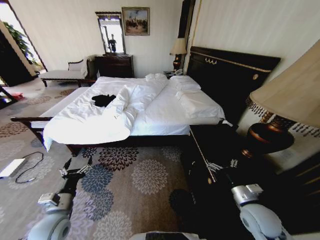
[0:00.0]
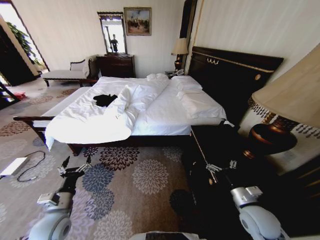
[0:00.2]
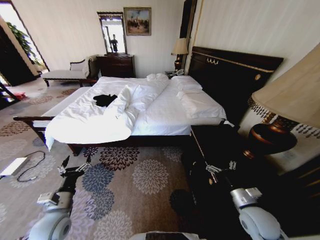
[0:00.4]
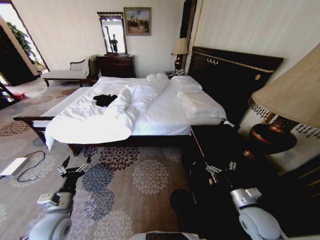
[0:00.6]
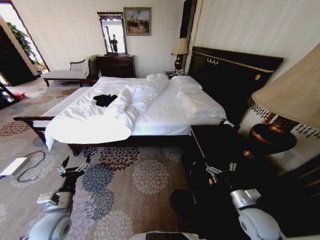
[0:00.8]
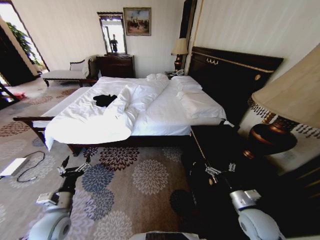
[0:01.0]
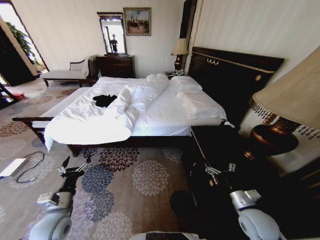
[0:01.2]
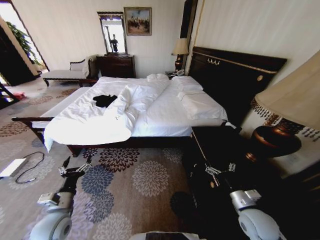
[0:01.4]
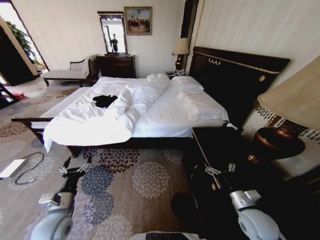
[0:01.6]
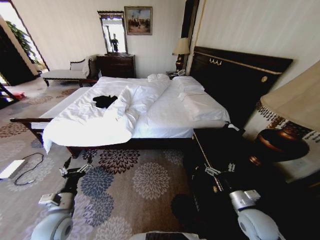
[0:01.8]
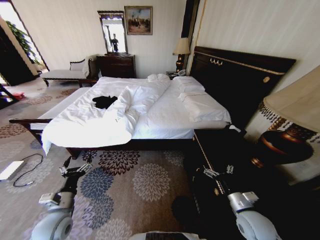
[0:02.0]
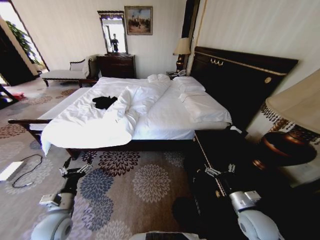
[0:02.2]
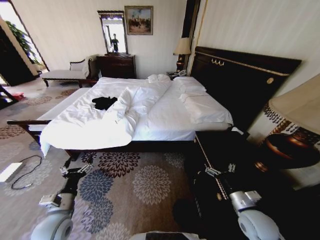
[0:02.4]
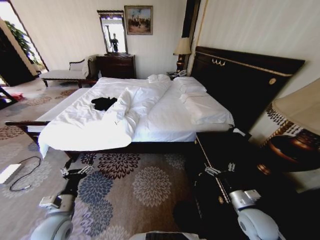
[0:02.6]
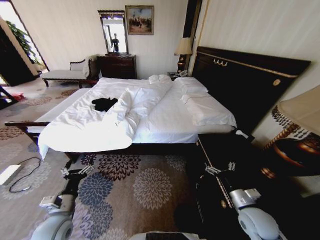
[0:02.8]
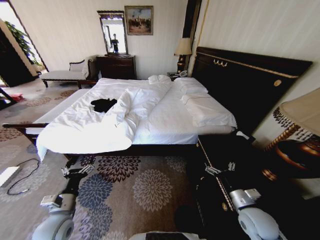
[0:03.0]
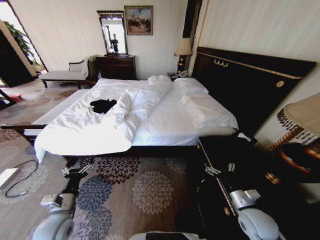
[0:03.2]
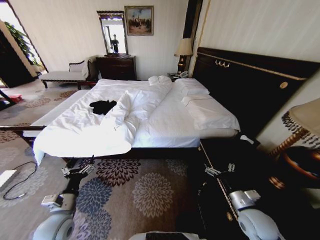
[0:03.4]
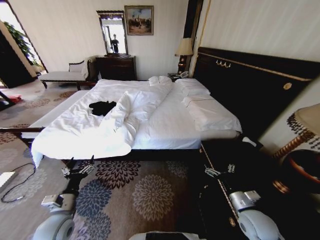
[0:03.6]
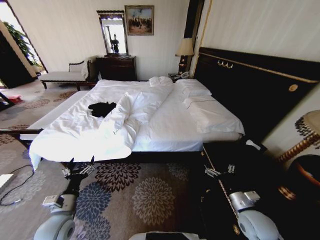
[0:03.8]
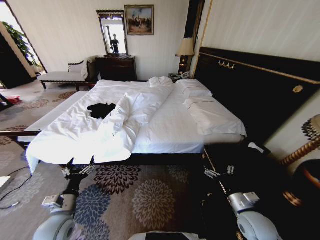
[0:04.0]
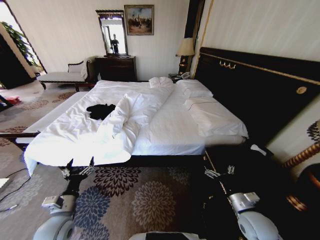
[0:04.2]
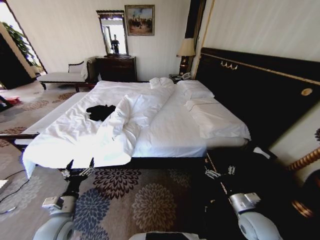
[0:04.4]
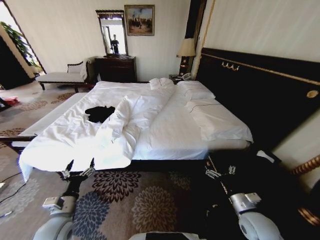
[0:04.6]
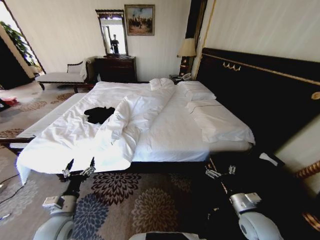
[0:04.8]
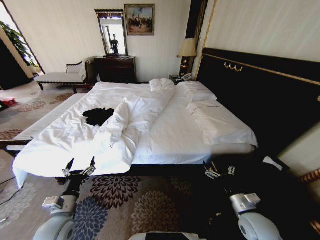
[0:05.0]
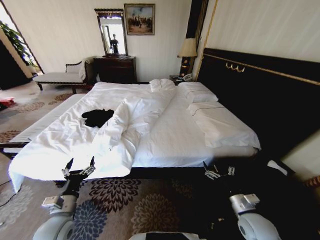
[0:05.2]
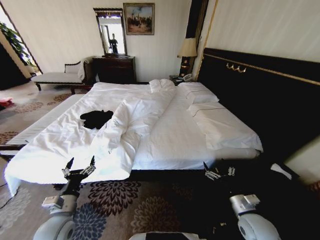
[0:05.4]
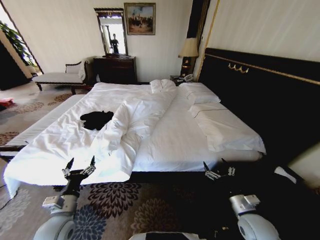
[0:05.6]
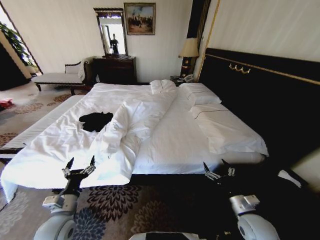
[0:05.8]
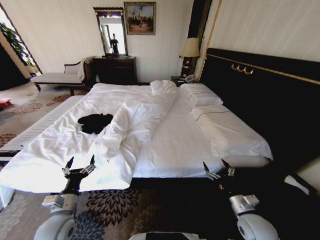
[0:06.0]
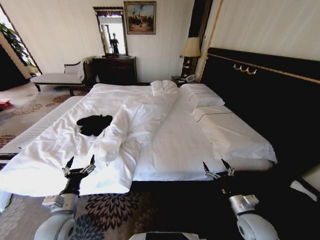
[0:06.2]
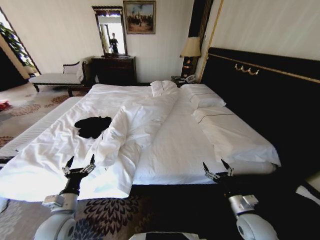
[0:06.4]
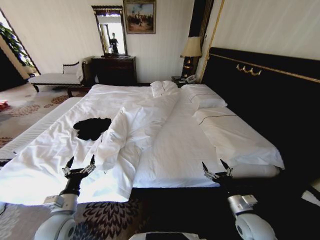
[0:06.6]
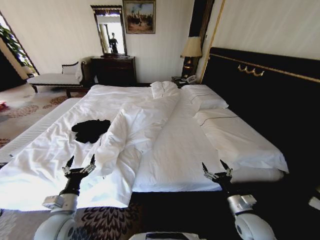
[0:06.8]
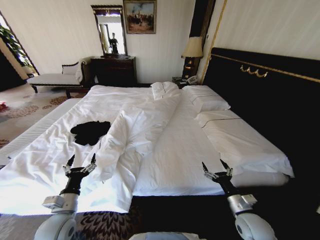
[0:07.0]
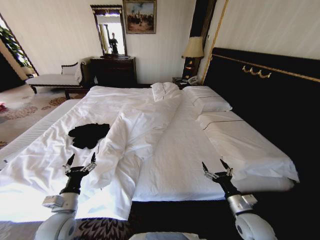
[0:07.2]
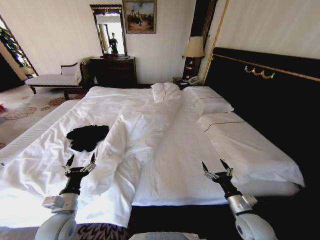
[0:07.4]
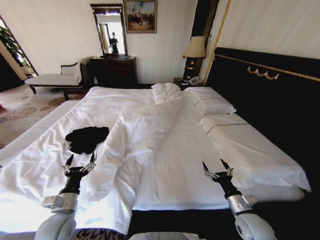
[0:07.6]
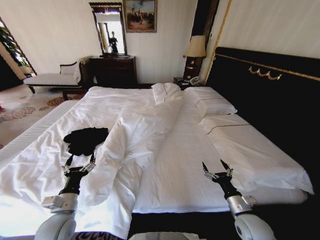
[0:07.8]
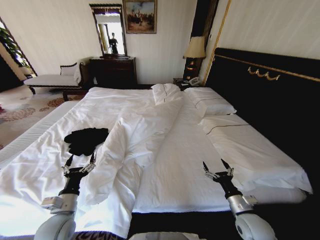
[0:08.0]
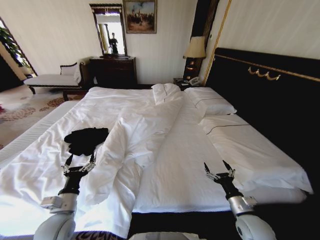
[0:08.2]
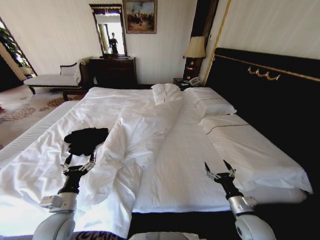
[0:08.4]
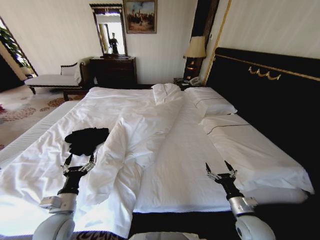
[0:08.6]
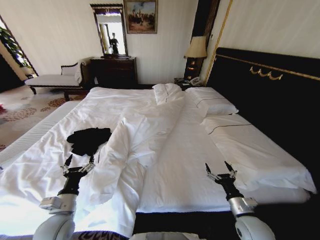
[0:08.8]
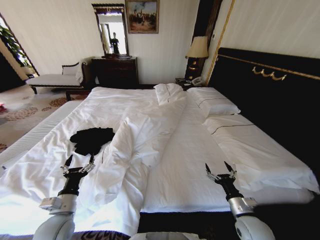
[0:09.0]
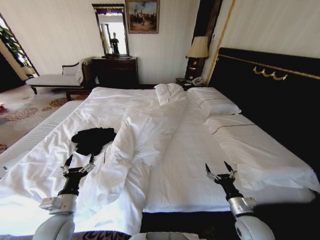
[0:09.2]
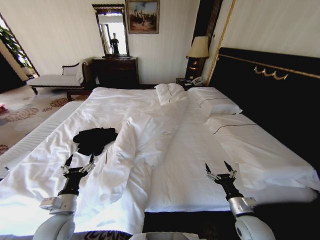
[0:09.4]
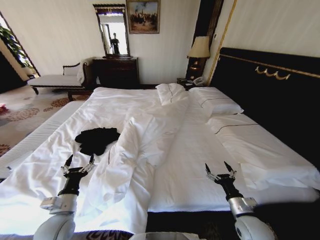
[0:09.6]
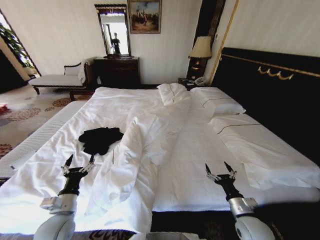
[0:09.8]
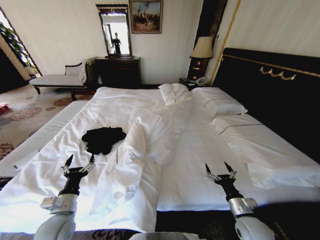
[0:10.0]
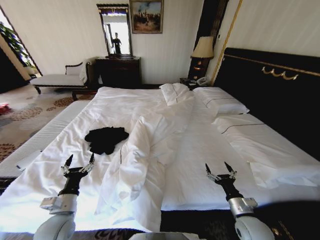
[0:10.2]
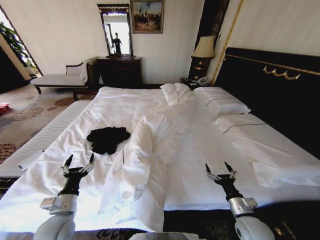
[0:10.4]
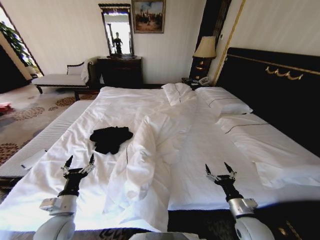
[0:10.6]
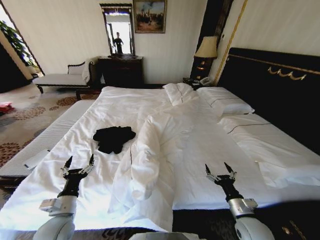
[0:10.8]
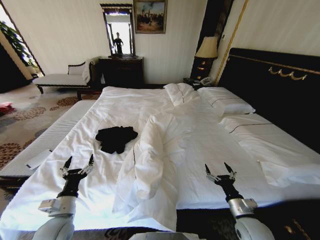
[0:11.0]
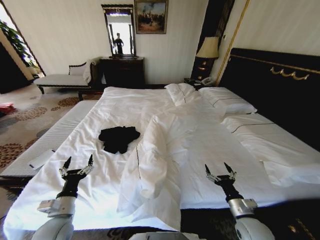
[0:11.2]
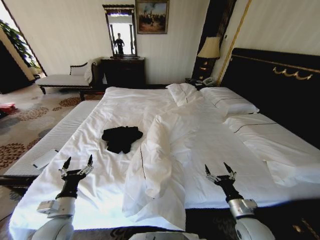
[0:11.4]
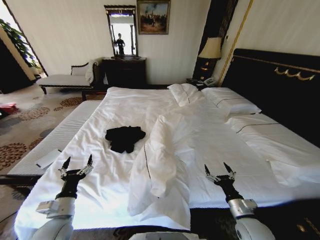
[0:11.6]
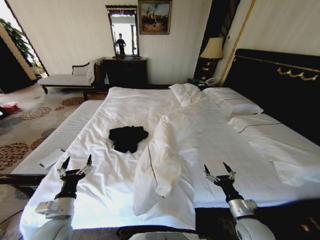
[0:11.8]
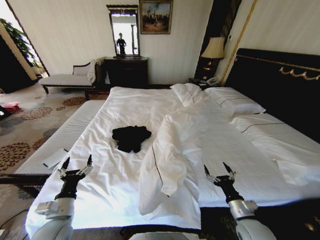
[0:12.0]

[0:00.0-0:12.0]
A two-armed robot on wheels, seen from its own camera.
Task of the whole recording: Fold the clothes on the bed.
0:07.6 to 0:09.0: Both grippers stay about where they are.

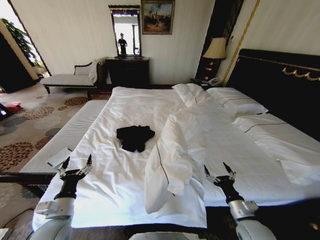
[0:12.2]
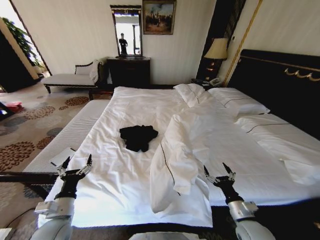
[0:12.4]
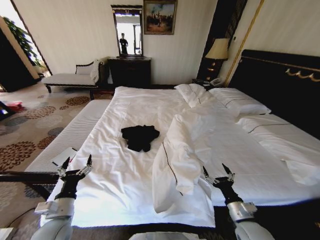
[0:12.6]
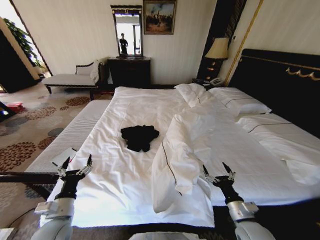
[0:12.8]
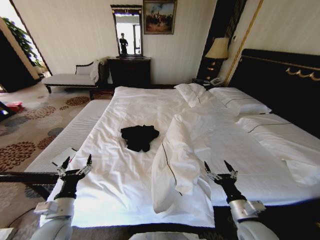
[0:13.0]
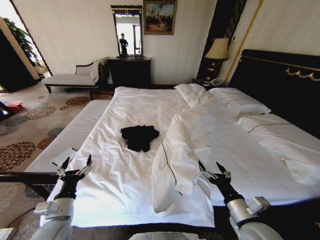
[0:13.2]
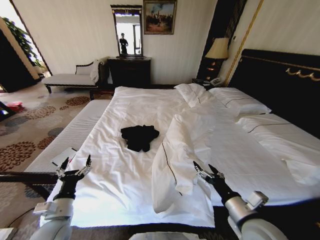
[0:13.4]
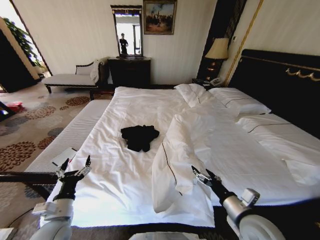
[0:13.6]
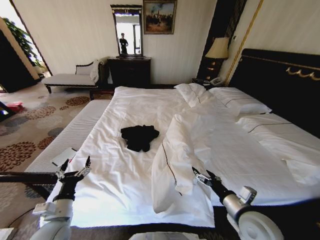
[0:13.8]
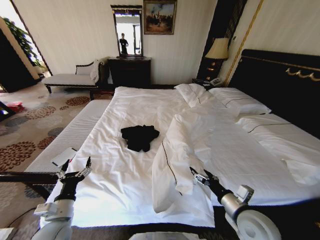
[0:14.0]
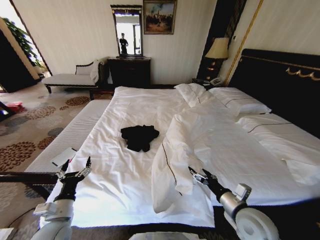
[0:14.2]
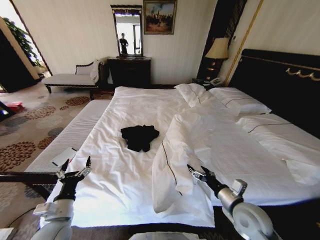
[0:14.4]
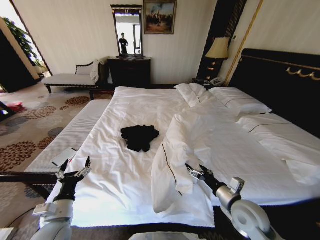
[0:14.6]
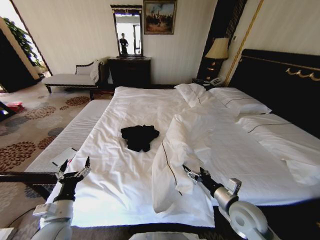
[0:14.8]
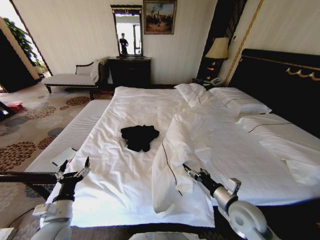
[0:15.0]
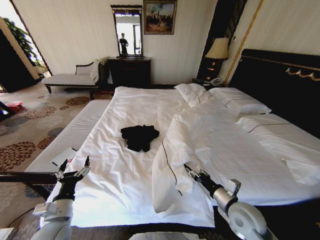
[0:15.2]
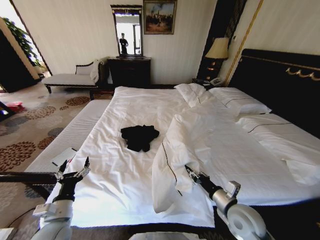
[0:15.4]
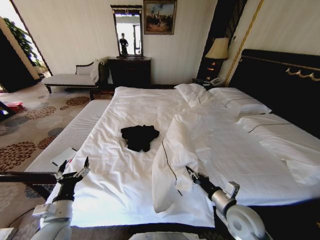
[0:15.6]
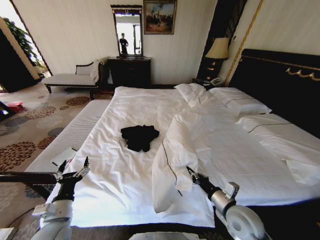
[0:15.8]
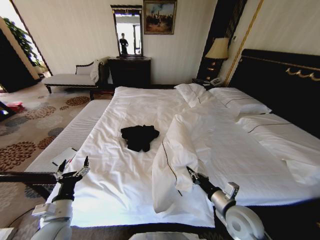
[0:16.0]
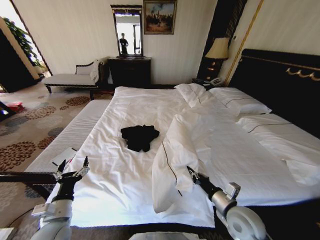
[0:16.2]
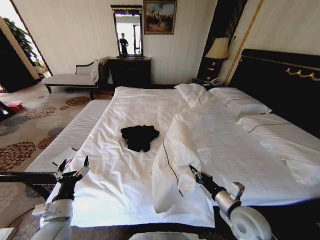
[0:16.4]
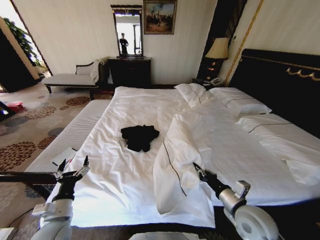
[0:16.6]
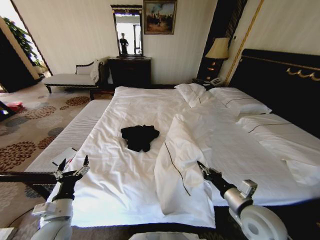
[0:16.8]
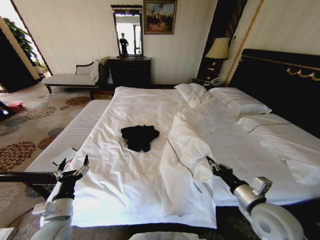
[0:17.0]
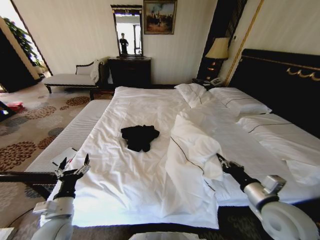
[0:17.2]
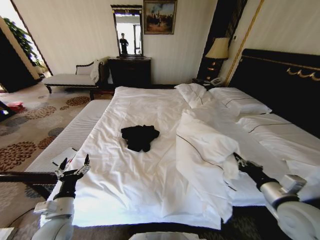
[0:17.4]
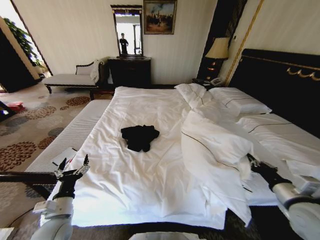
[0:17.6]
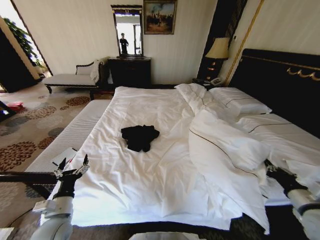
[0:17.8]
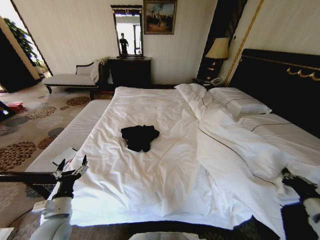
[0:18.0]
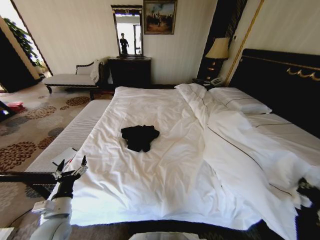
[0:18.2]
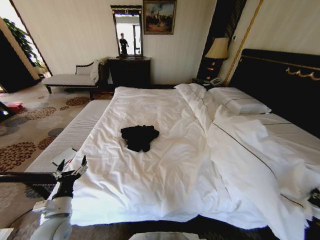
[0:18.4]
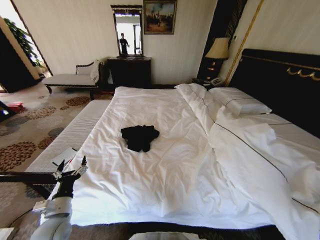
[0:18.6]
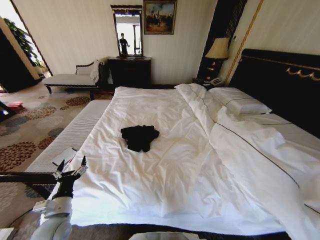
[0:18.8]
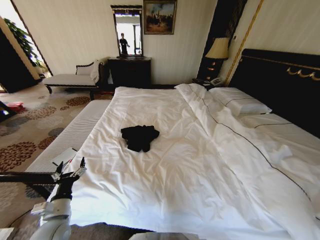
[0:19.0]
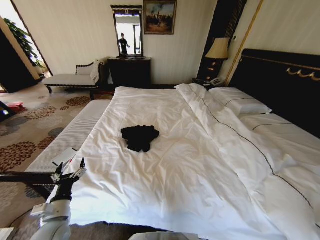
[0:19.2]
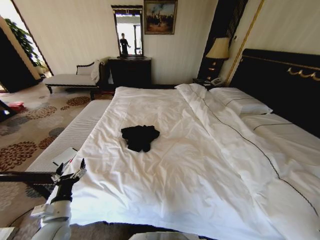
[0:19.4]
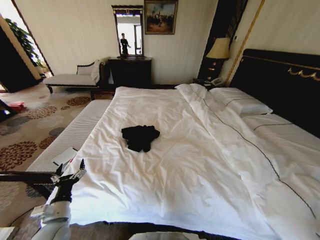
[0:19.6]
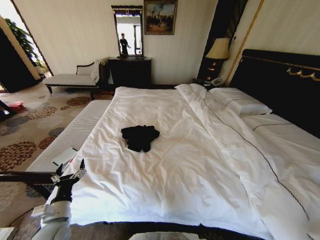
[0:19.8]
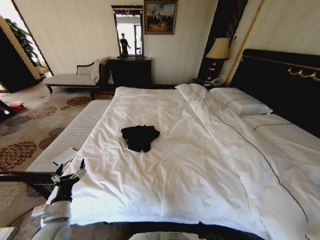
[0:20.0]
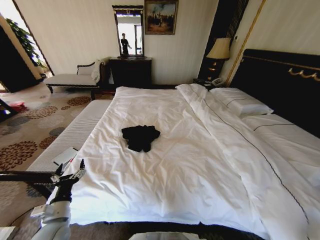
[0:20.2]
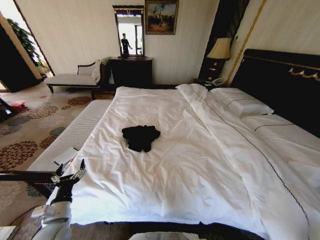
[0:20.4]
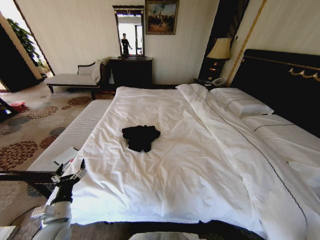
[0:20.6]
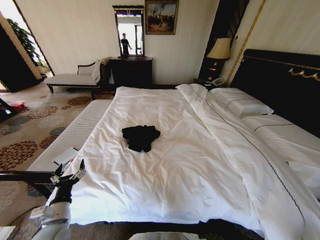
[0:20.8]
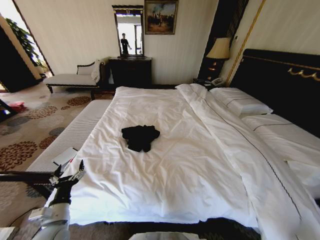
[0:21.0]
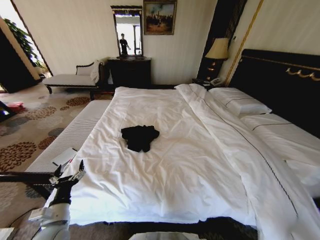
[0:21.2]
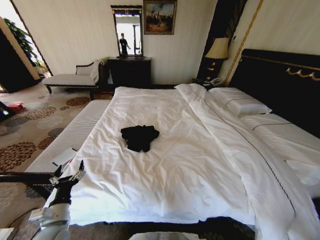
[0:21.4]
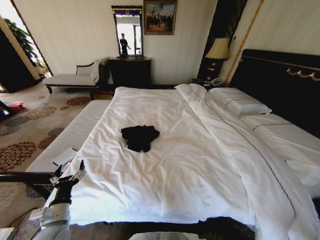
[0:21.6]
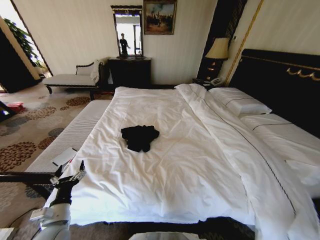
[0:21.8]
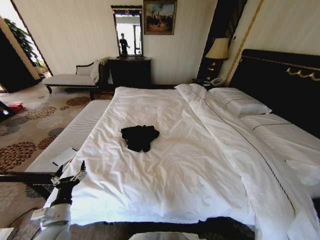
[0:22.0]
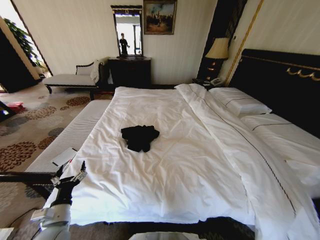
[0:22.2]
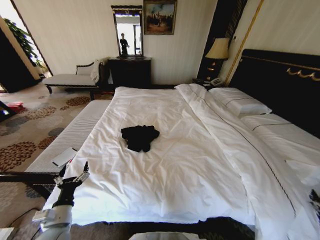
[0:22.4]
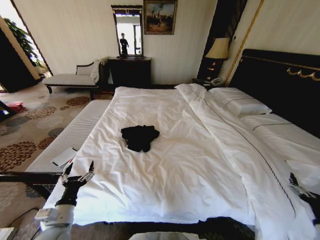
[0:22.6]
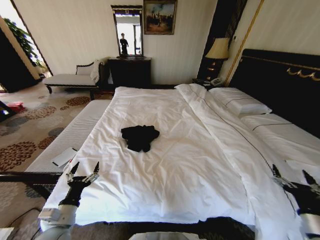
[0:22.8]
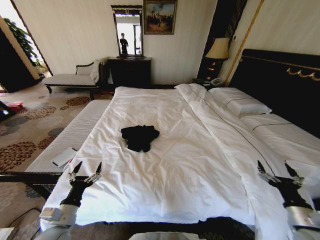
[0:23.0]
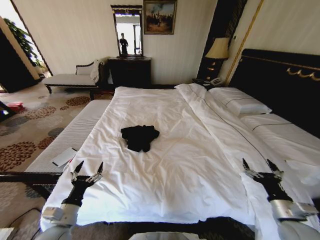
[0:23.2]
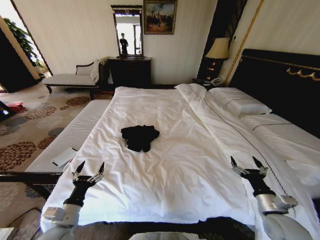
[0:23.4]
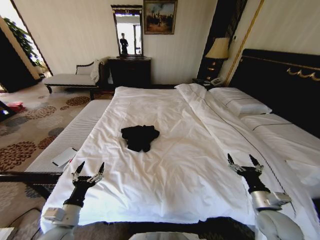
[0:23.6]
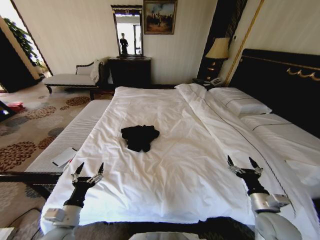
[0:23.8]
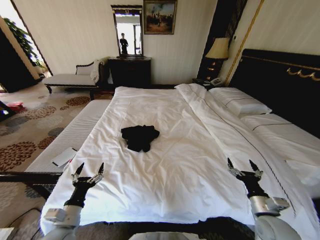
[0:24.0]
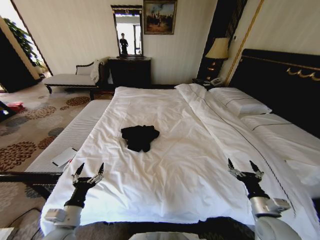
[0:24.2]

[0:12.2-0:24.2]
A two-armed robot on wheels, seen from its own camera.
Task of the whole recording: Fold the clothes on the bed.
0:12.2 to 0:13.8: The right gripper is displaced upward by about 10 cm.
0:13.8 to 0:15.2: The right gripper closes.
0:15.2 to 0:16.6: The right gripper closes its fingers.
0:16.6 to 0:18.2: The right gripper heads to the right, covering approximately 25 cm.
0:18.2 to 0:19.8: The right gripper heads backward and downward, covering roughly 20 cm.
0:19.8 to 0:21.2: The right gripper heads downward, covering about 10 cm.
0:21.2 to 0:22.6: The right gripper shifts about 20 cm upward, forward and to the left, and opens its fingers.
0:22.6 to 0:24.2: The right gripper heads to the left and forward, covering some 15 cm.
